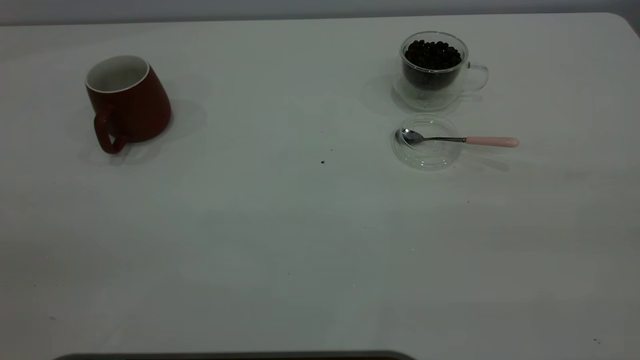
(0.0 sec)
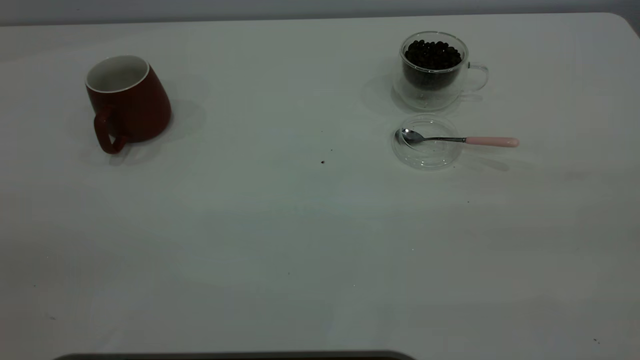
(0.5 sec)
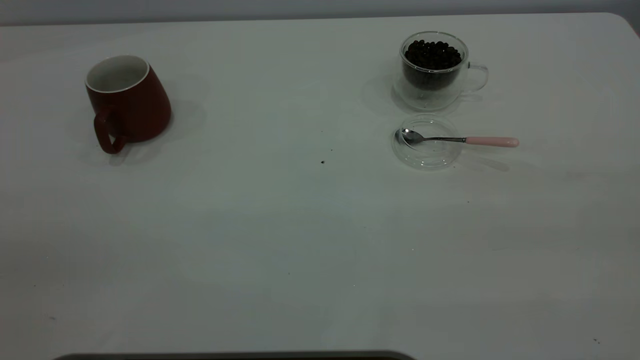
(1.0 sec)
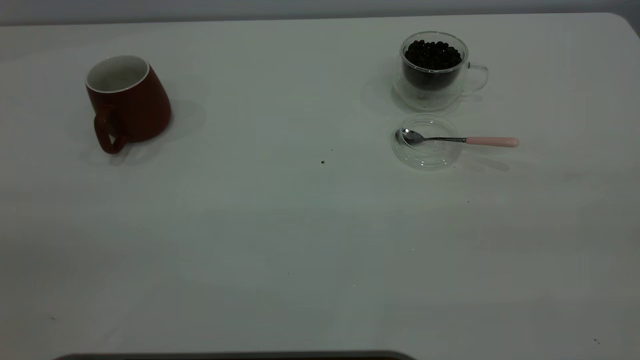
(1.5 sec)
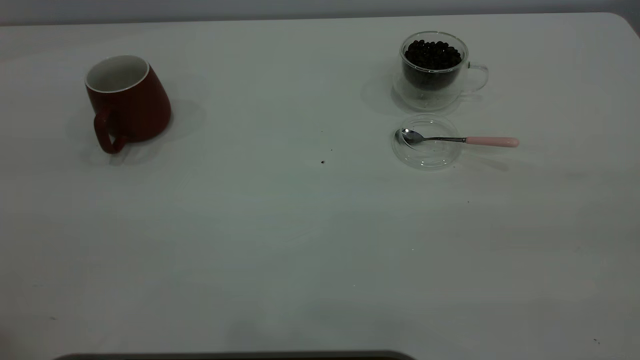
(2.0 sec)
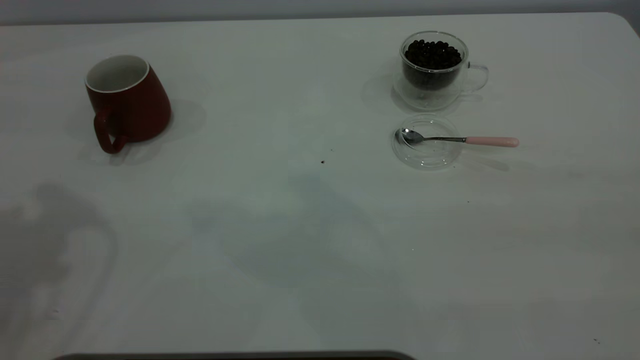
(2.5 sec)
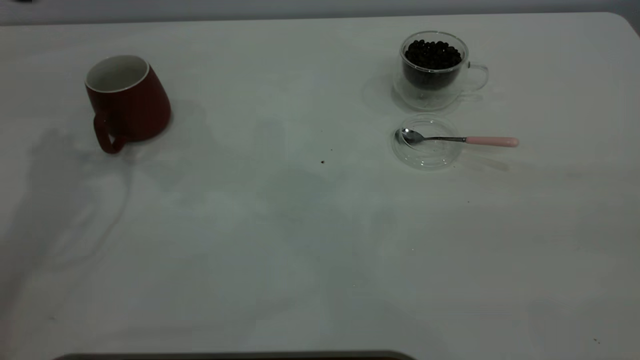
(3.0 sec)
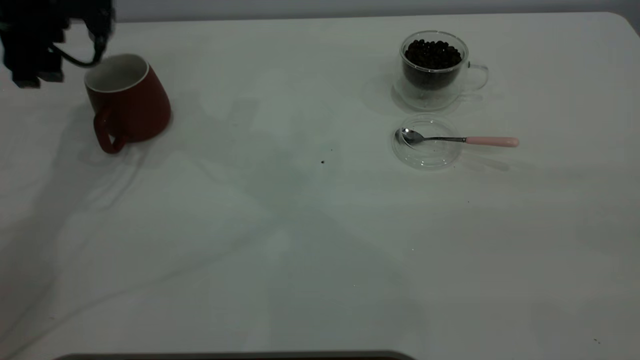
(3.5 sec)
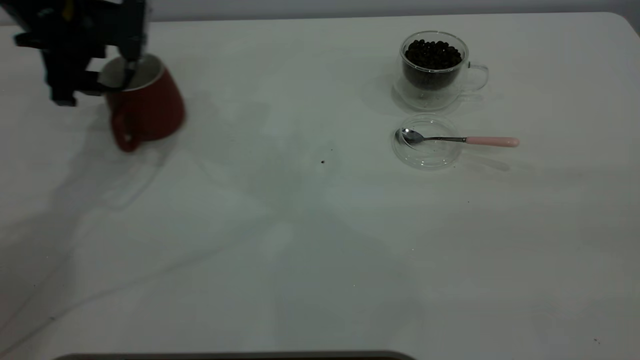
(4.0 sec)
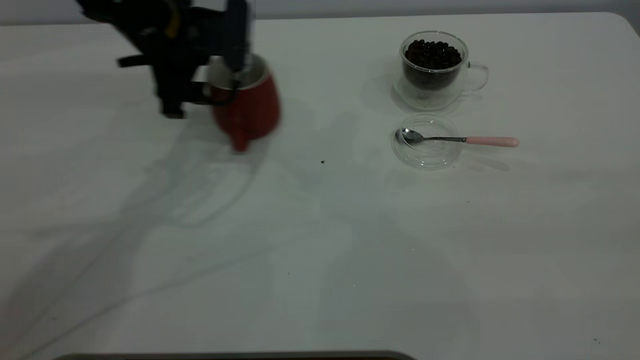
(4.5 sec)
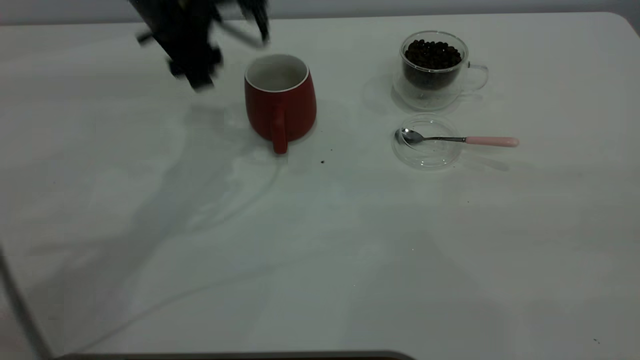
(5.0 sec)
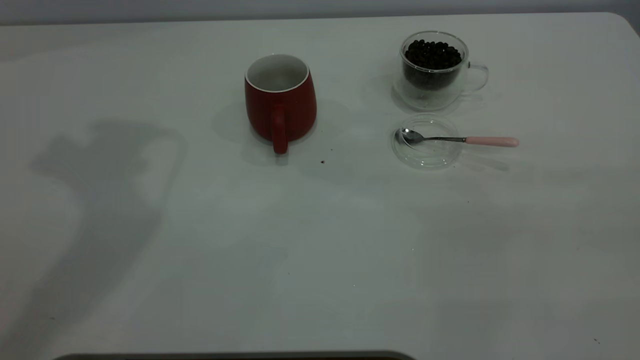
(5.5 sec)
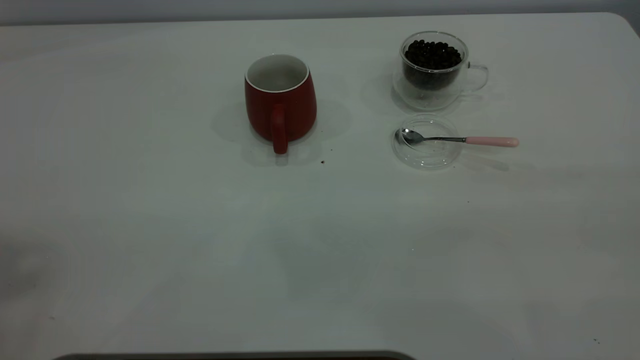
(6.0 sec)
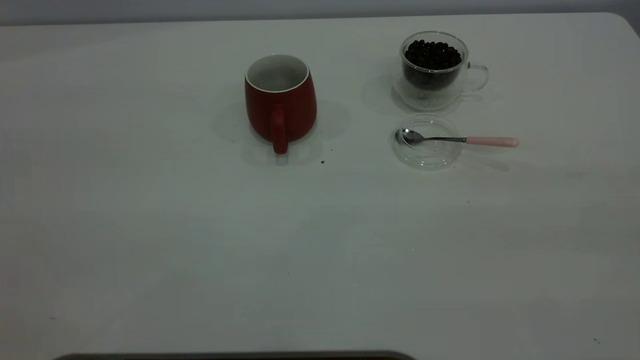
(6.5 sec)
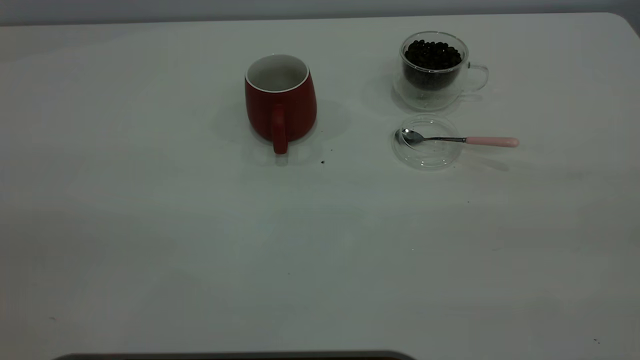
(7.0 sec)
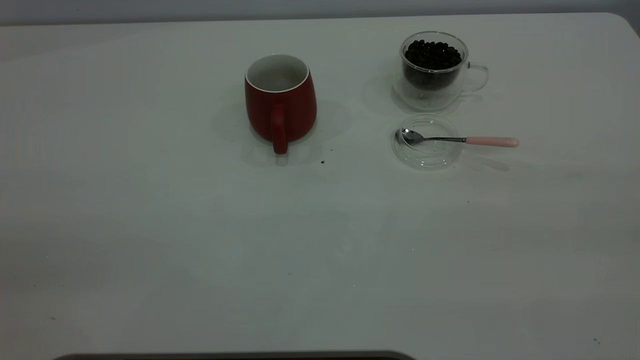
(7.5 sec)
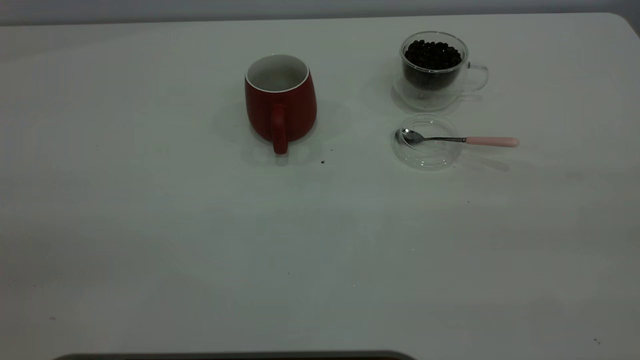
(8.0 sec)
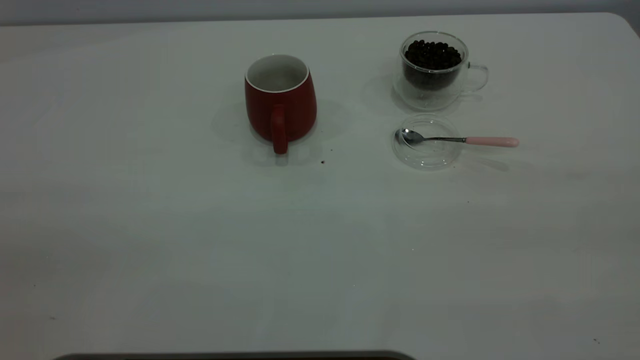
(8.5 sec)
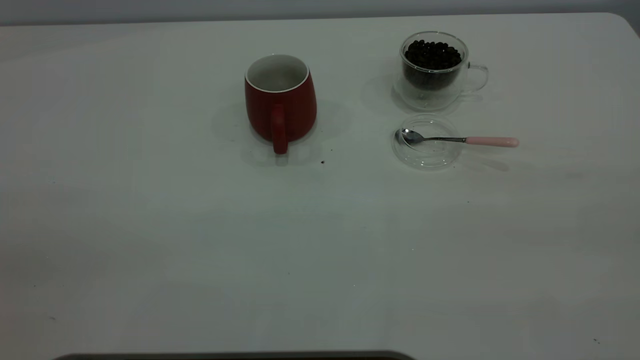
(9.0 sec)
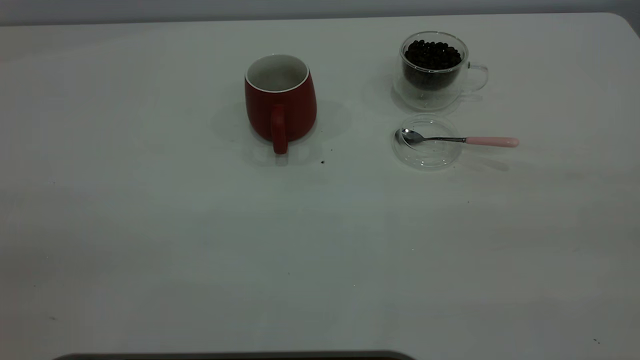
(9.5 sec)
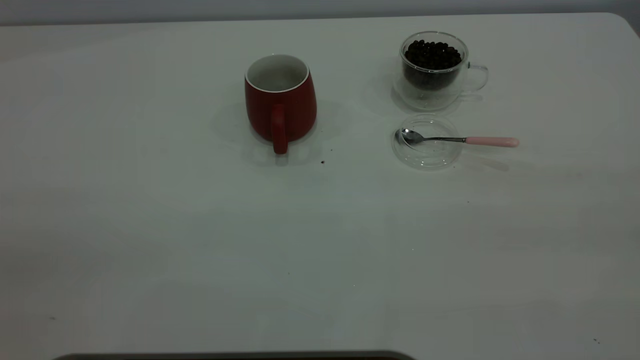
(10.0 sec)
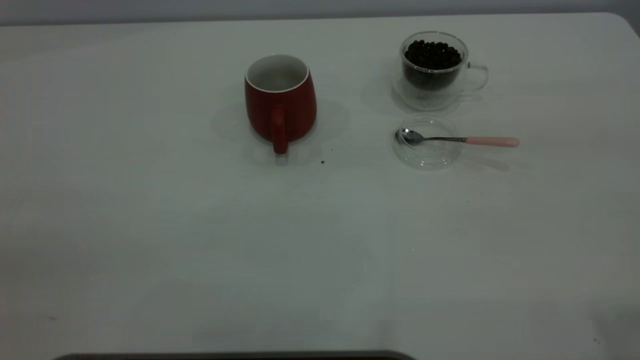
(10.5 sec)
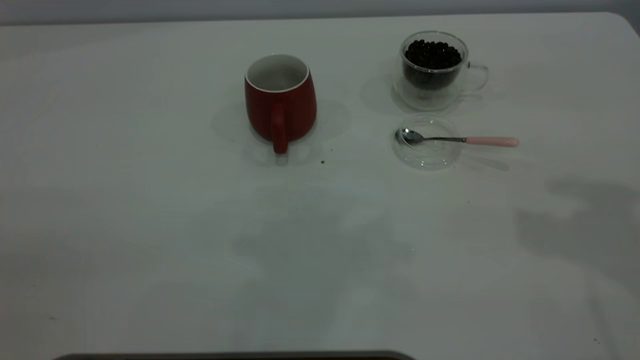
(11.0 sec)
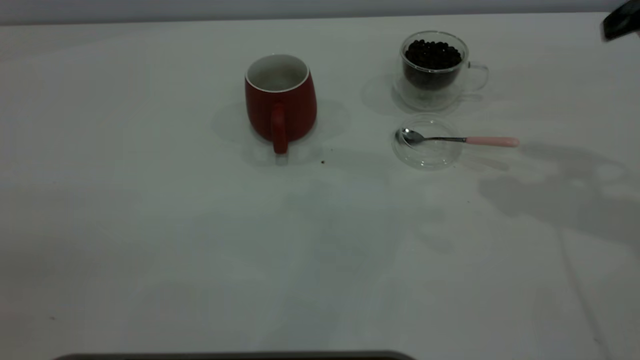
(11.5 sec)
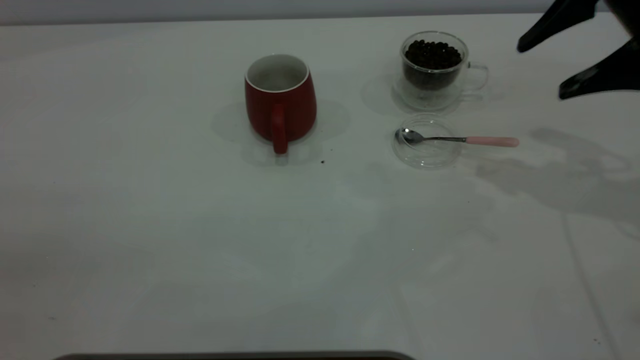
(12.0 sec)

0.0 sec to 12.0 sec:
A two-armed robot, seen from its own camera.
Task of the whole recording: the left gripper place the red cup in the center of the table, the right gripper take the pink spoon from the cup lid and scoop out the coffee beans from the coffee cup and put them into the red cup, the right gripper put the spoon back into the cup lid.
Step, 0.0 sec to 4.5 sec: Move the cup to the center of view.
2.0 sec to 4.0 sec: The left gripper moves forward and downward, roughly 40 cm.
4.0 sec to 6.0 sec: The left gripper moves upward and backward, about 50 cm.
10.0 sec to 12.0 sec: The right gripper goes about 35 cm forward and downward.

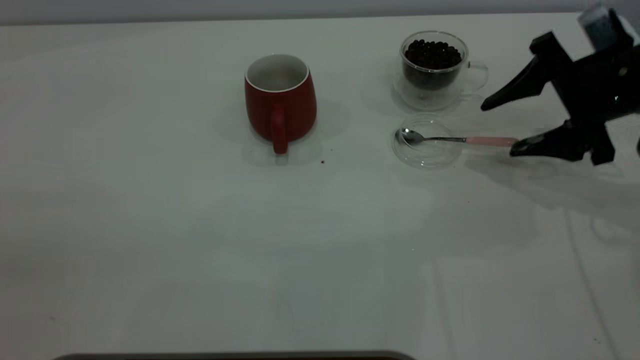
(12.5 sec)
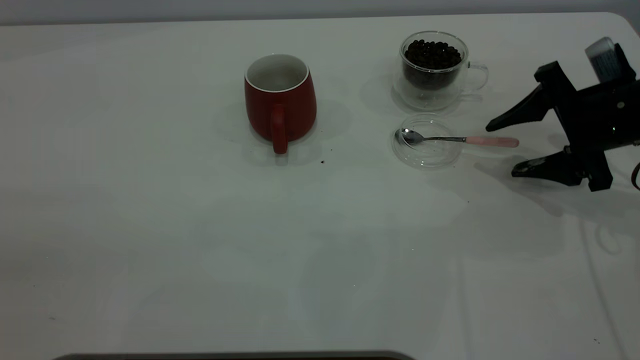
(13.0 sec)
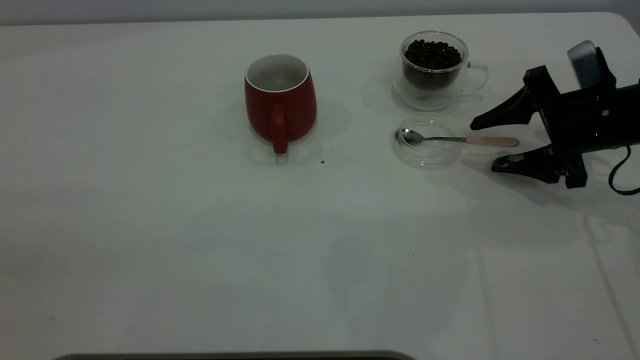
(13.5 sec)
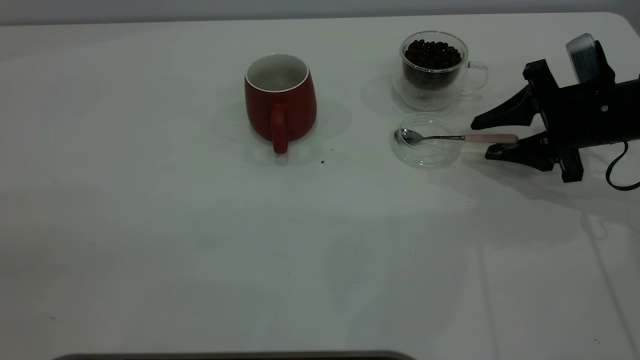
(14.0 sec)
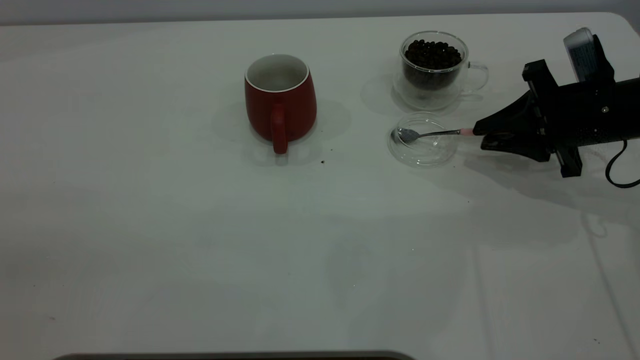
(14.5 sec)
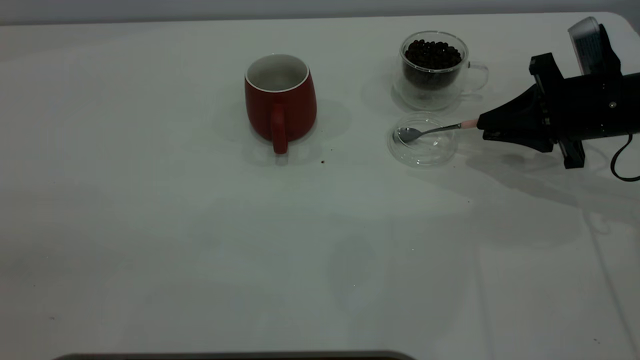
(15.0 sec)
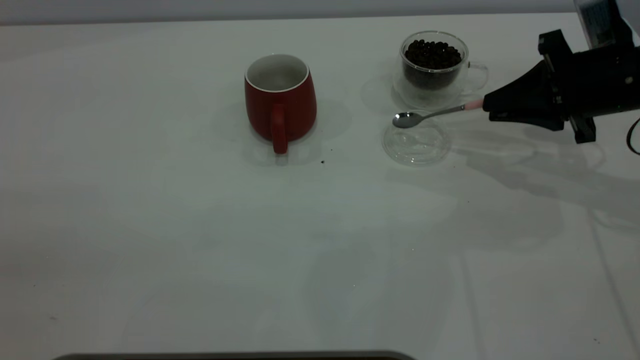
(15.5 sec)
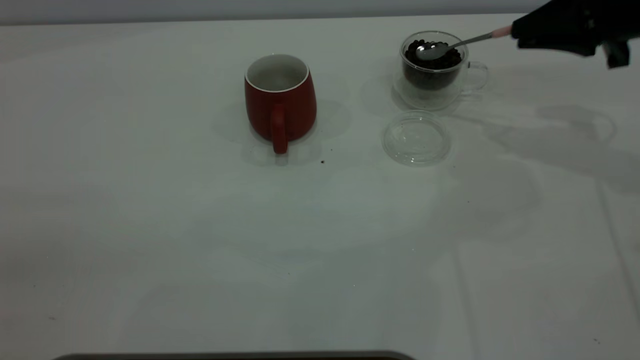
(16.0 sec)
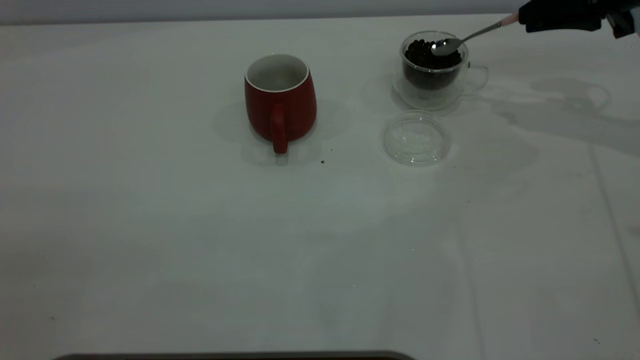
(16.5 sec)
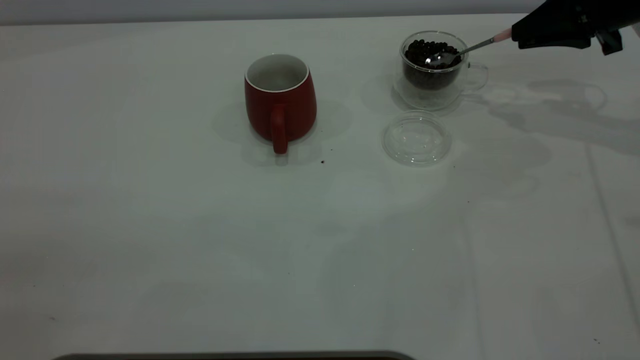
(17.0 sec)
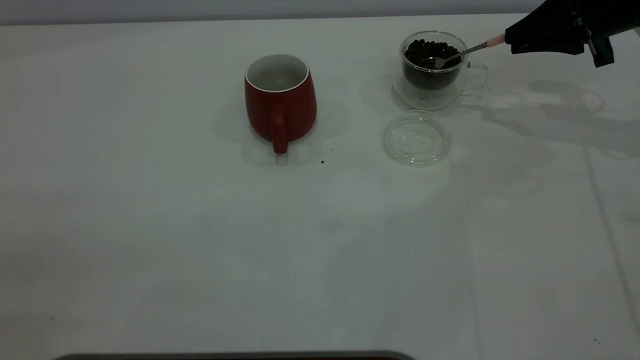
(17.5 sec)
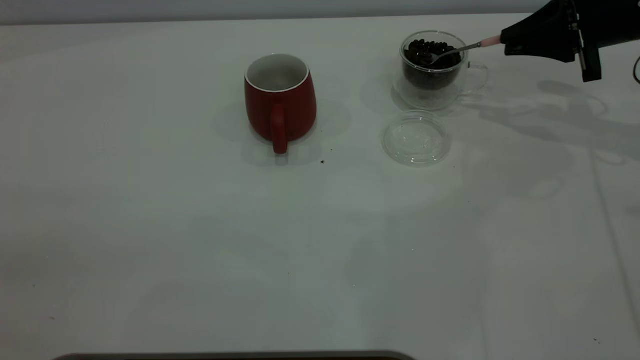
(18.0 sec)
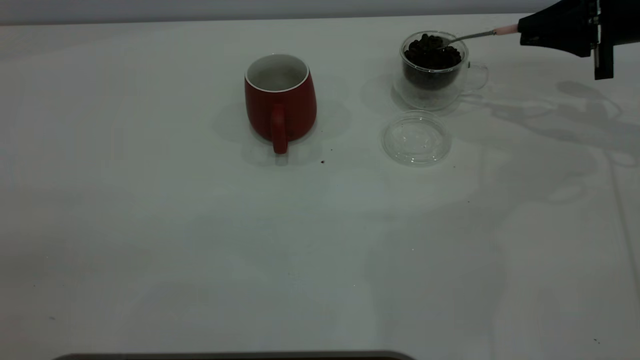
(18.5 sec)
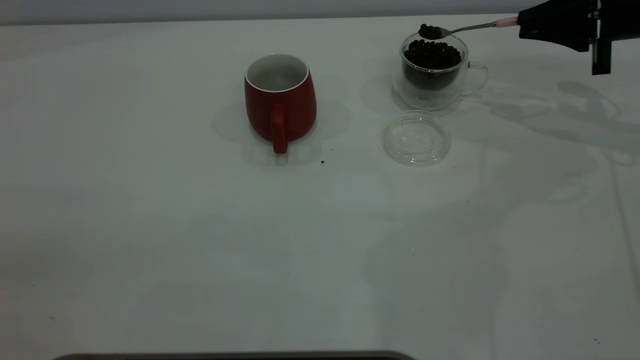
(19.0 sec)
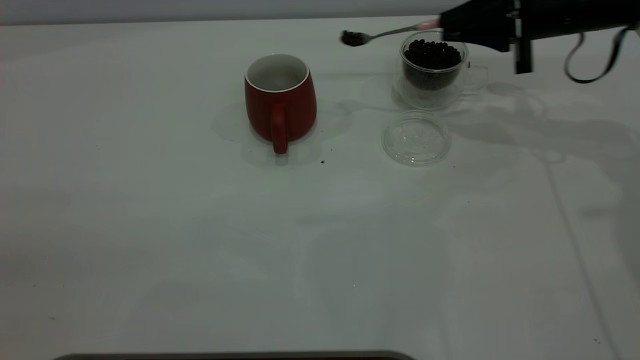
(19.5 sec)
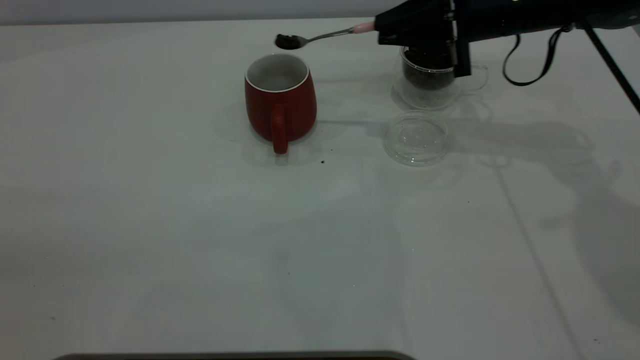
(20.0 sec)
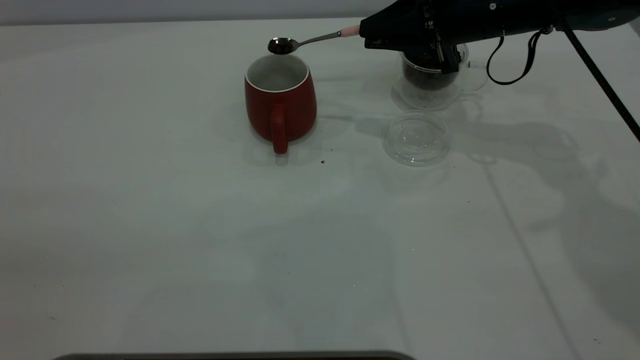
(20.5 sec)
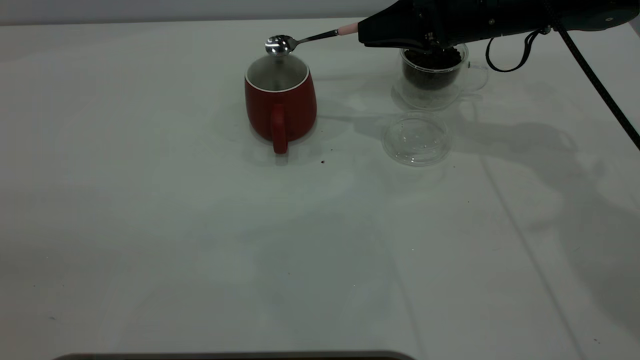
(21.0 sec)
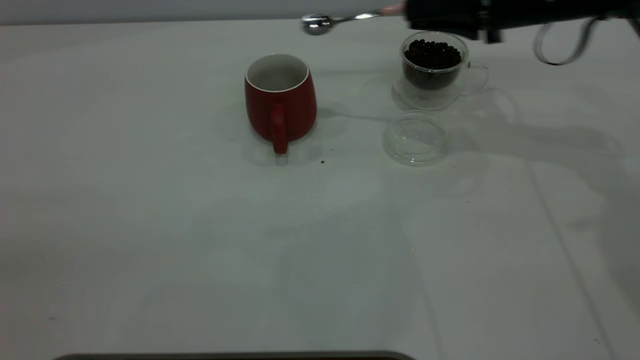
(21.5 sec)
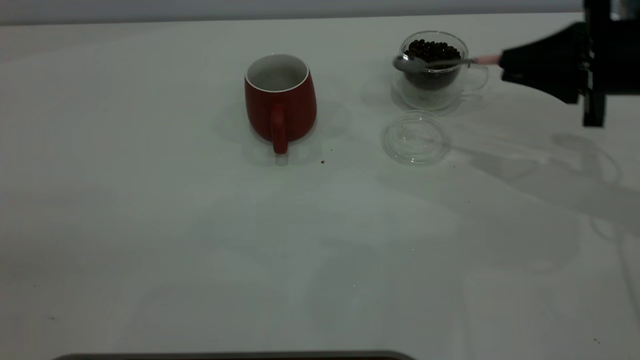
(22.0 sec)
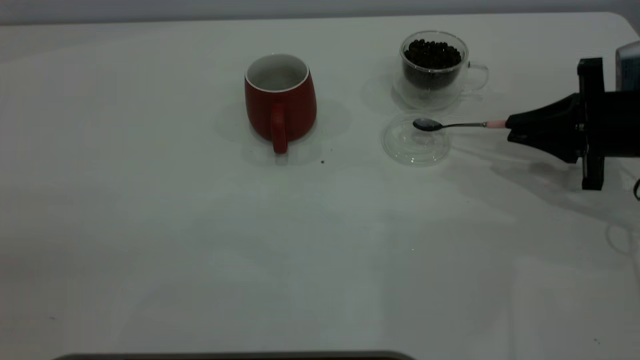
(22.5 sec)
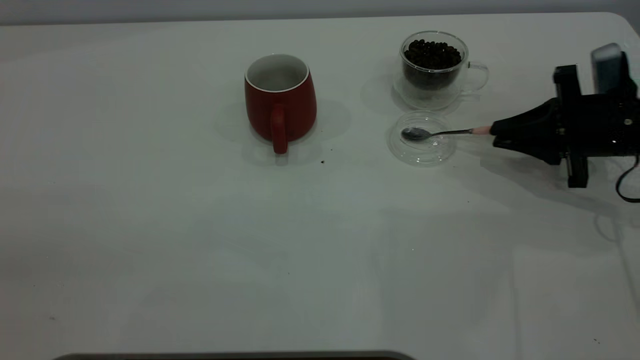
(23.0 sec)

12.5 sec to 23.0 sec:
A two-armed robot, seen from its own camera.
Task of the whole recording: the left gripper place the red cup in the center of the table, the right gripper take the pink spoon from the cup lid and scoop out the coffee beans from the coffee cup and put them into the red cup, the right gripper put the spoon back into the cup lid.
Step, 12.5 sec to 15.5 sec: Pick up the spoon.
Step, 16.0 sec to 21.0 sec: Scoop a spoonful of beans into the cup.
12.5 sec to 14.5 sec: The right gripper closes up.
14.5 sec to 16.5 sec: The right gripper moves upward and forward, approximately 15 cm.
19.0 sec to 21.0 sec: The right gripper moves to the left, roughly 15 cm.
21.0 sec to 23.0 sec: The right gripper moves to the right, backward and downward, approximately 20 cm.
